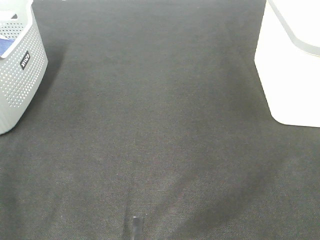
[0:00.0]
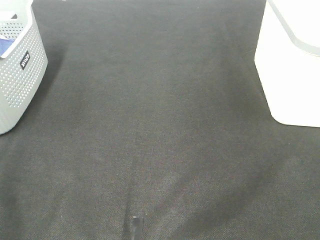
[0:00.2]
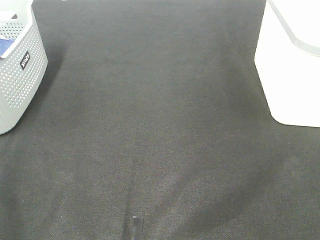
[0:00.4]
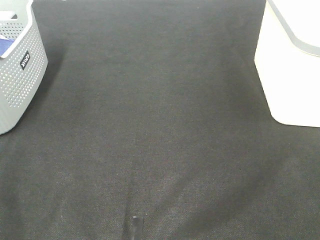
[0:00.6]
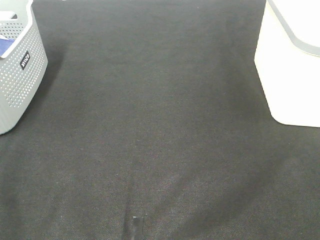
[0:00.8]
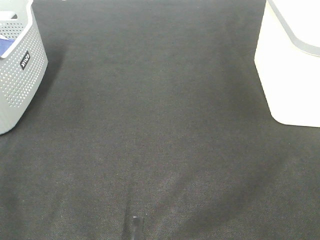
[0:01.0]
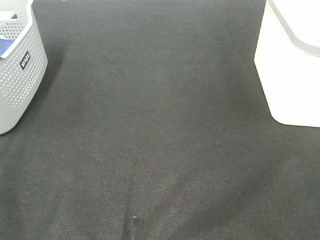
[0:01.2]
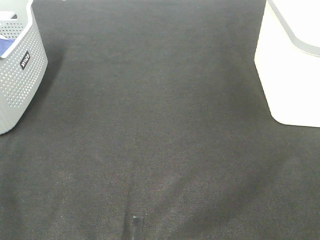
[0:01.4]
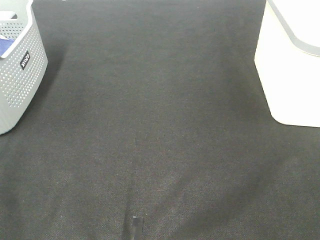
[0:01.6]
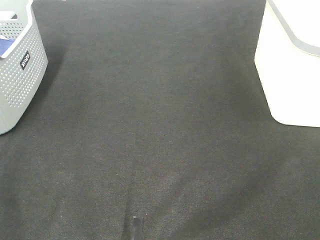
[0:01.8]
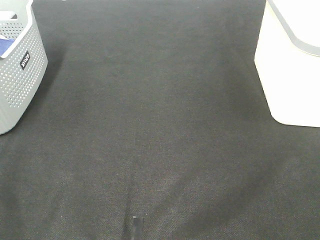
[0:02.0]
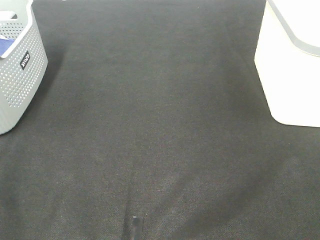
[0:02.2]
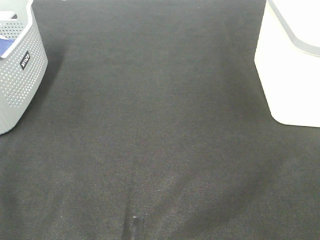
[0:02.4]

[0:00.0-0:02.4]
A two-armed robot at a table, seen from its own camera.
0:01.2 to 0:02.4: Both grippers stay about where they are.

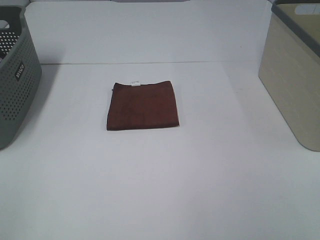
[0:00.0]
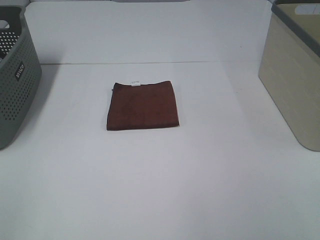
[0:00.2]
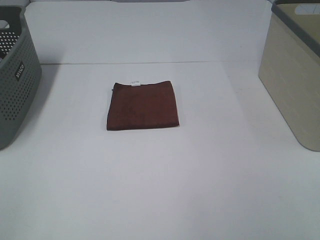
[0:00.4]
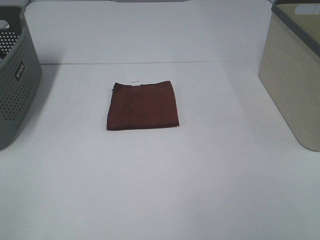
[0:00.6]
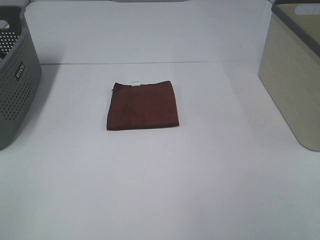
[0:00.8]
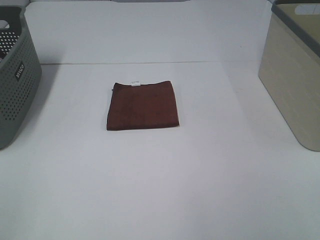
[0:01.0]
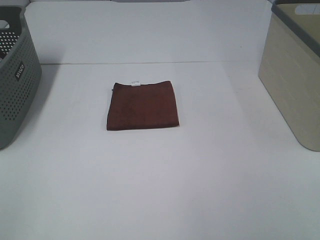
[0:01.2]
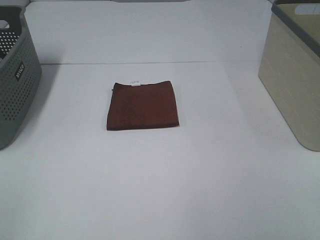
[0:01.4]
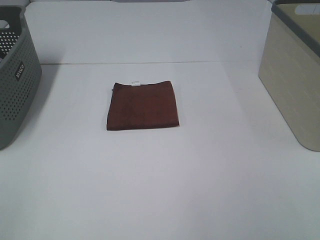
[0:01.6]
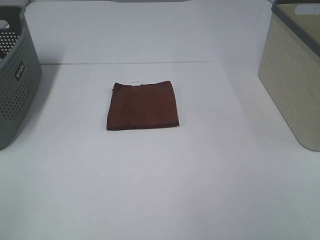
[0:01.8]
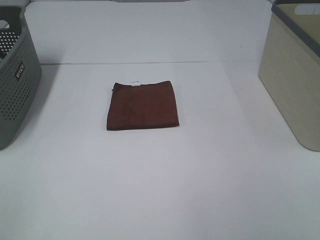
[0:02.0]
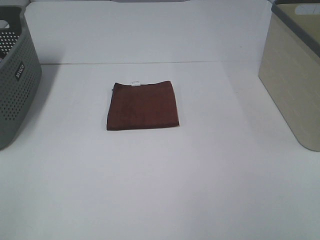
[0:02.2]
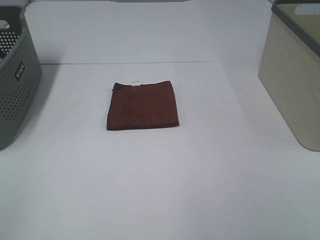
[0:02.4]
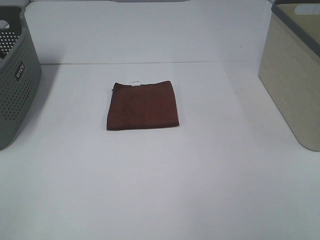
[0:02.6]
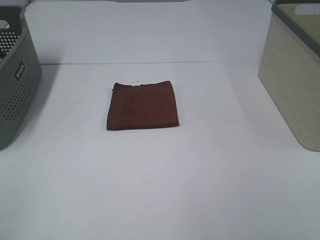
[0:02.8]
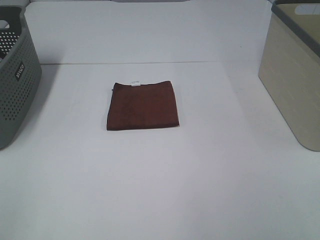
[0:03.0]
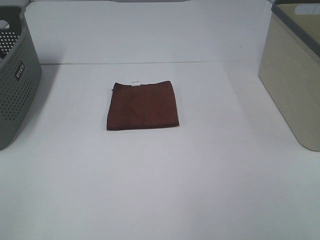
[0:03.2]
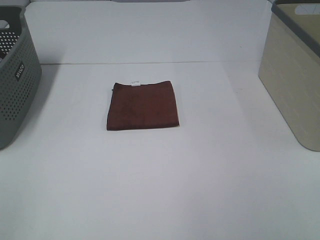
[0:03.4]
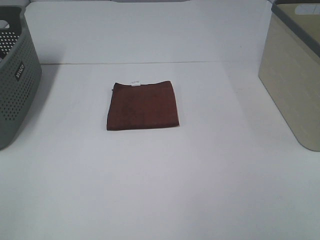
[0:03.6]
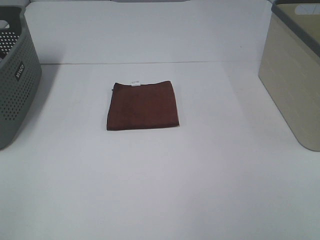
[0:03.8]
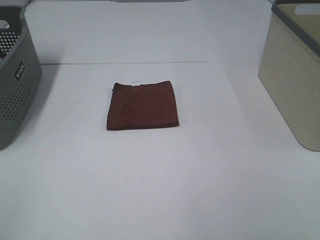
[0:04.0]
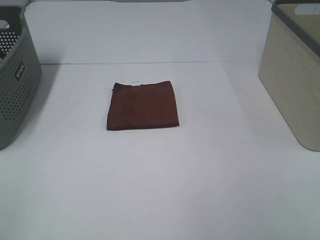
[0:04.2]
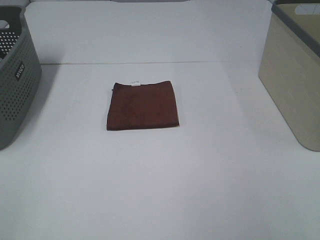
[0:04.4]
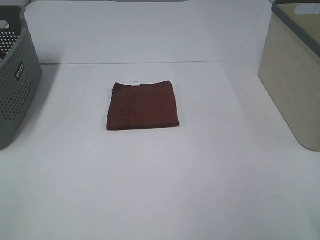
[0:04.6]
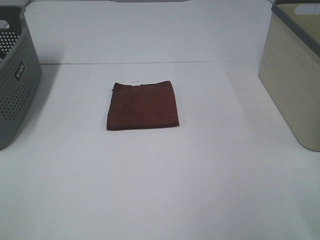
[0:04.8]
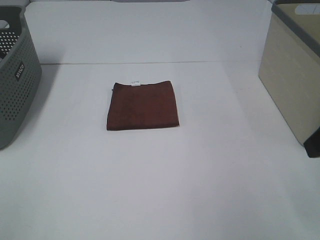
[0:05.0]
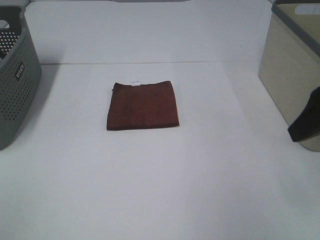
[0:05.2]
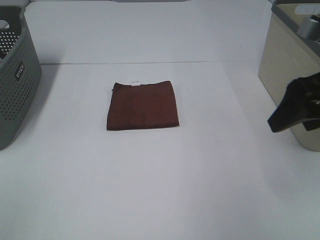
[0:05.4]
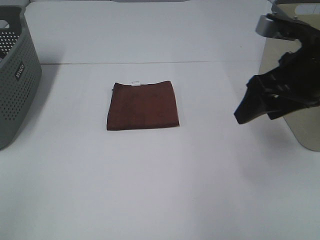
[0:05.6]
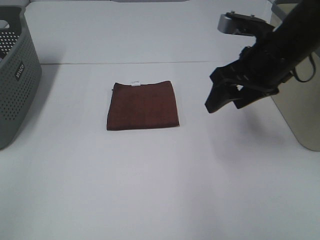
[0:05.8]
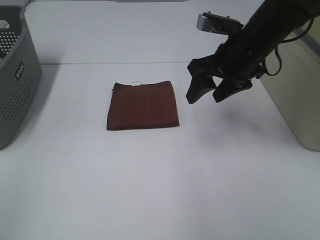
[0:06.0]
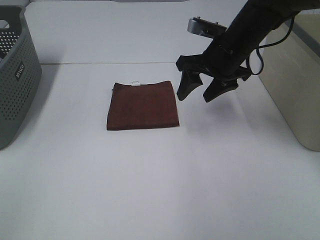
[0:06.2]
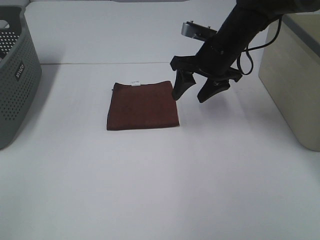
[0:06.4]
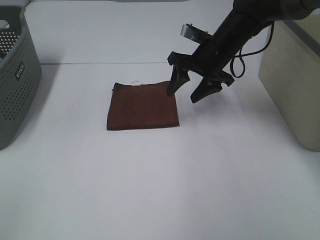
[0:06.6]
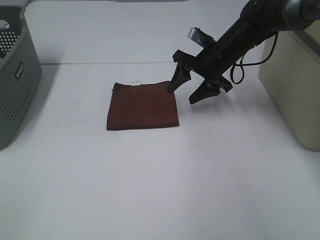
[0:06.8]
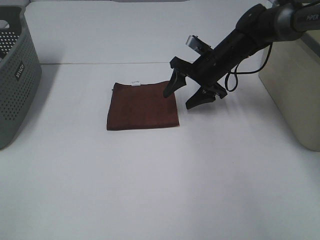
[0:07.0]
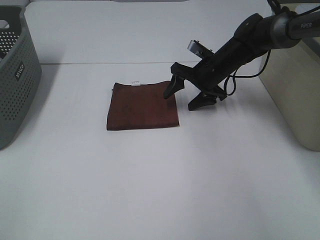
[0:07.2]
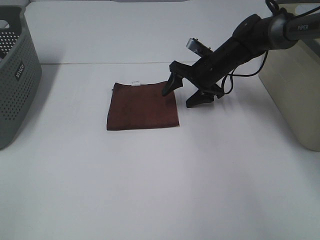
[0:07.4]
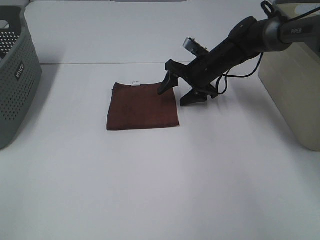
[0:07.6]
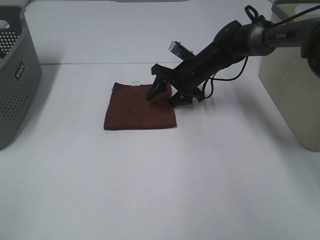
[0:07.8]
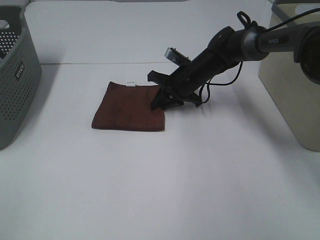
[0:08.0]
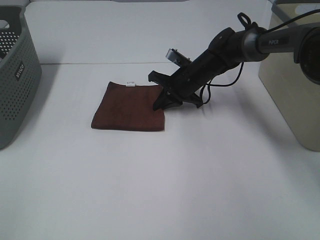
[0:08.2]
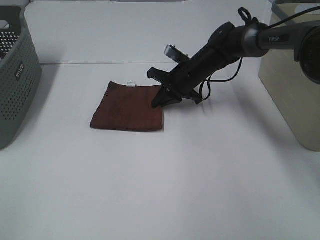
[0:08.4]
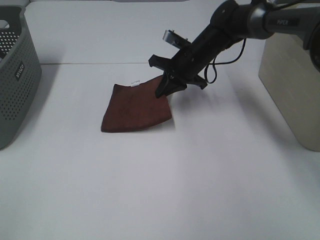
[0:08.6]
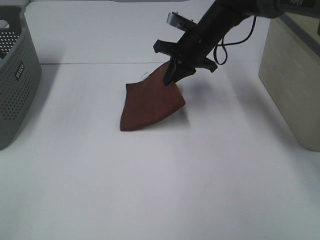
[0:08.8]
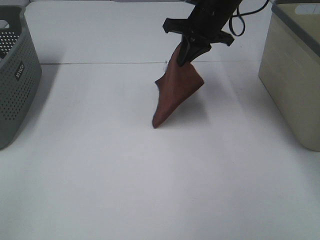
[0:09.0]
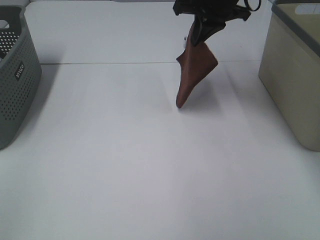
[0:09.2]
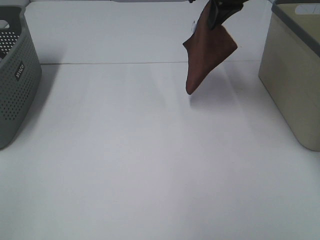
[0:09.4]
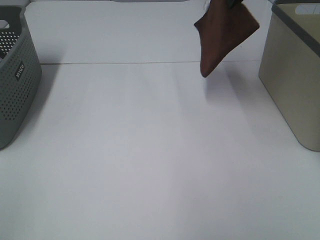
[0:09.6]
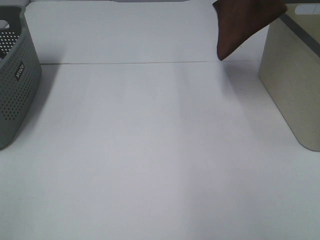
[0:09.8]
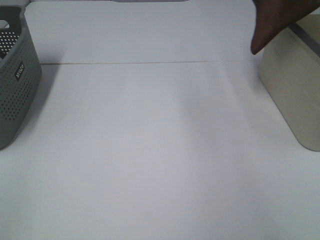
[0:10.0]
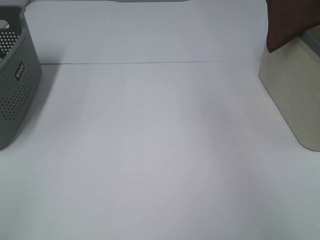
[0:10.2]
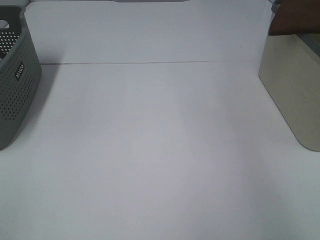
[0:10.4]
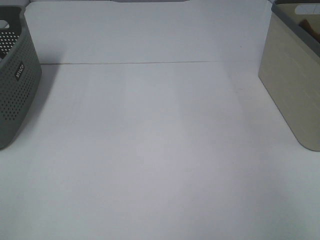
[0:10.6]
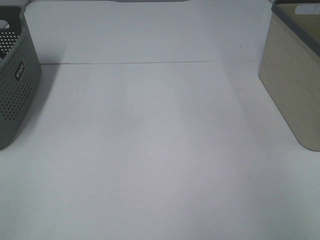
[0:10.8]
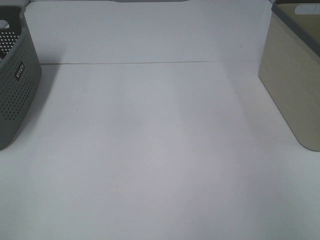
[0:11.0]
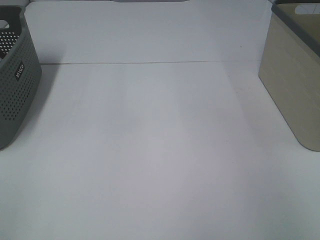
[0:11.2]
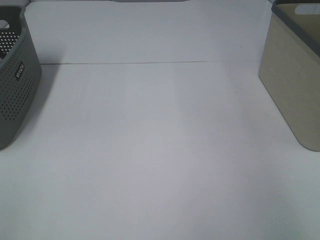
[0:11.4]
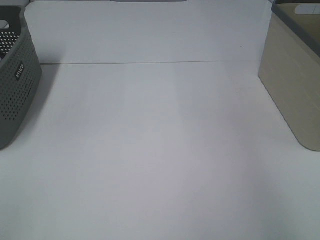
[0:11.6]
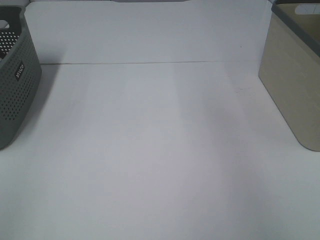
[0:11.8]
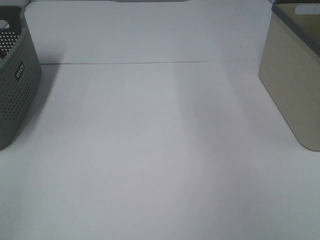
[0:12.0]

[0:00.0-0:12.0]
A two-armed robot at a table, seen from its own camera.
Step, 0:00.0 to 0:08.2: Right hand: grab the folded brown towel.
Step, 0:08.4 to 0:11.2: Right hand: place the brown towel in right basket.
0:00.0 to 0:03.0: The two grippers keep their place.
0:04.4 to 0:06.0: The right gripper moves forward and to the left, some 30 cm.
0:06.0 to 0:07.6: The right gripper heads forward and downward, covering about 15 cm.
0:07.6 to 0:09.0: The right gripper heads upward, covering roughly 15 cm, and closes up.
0:09.0 to 0:10.4: The right gripper heads to the right, covering approximately 30 cm.
0:10.4 to 0:12.0: The right gripper heads to the left, backward and upward, covering roughly 10 cm, and opens.

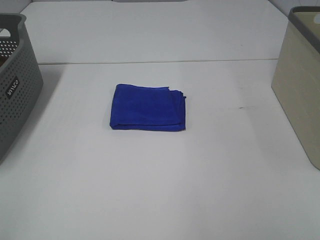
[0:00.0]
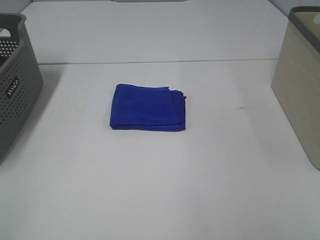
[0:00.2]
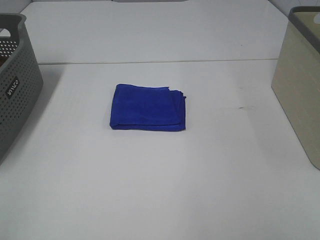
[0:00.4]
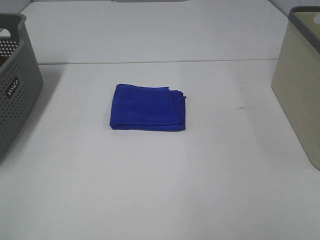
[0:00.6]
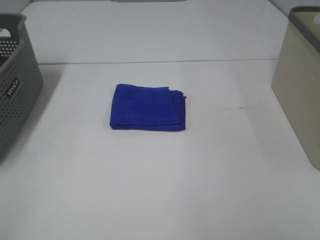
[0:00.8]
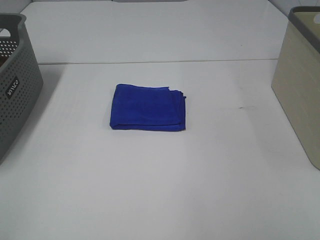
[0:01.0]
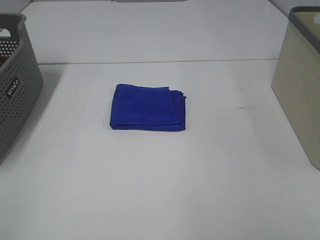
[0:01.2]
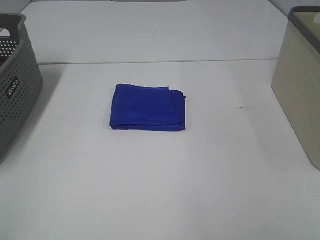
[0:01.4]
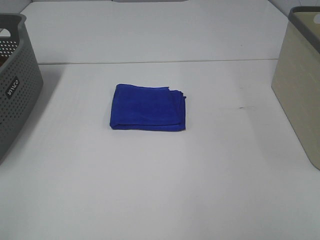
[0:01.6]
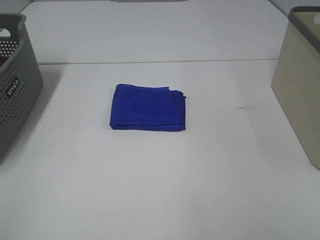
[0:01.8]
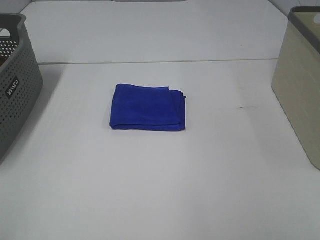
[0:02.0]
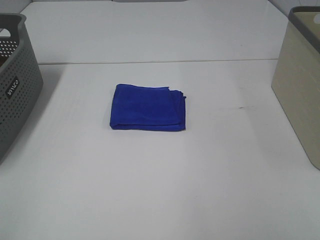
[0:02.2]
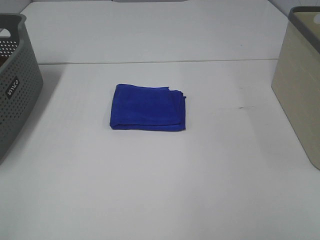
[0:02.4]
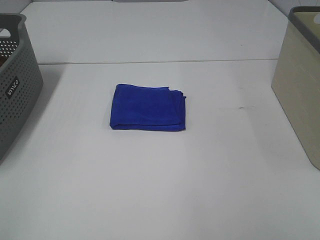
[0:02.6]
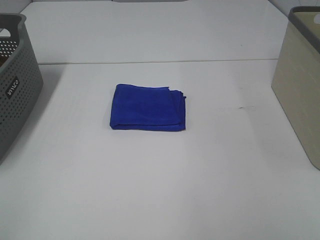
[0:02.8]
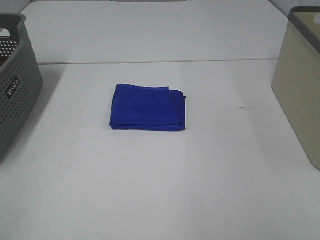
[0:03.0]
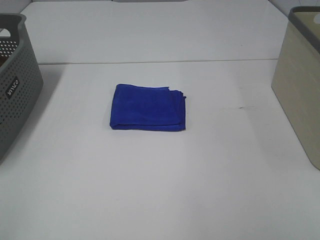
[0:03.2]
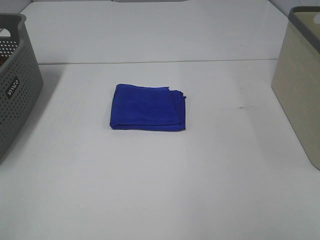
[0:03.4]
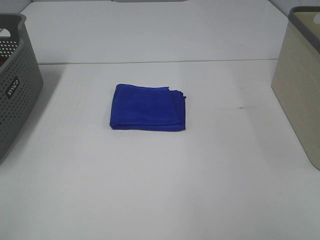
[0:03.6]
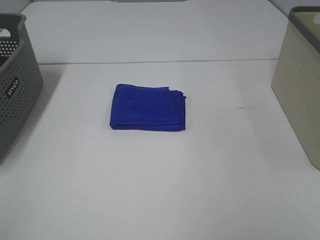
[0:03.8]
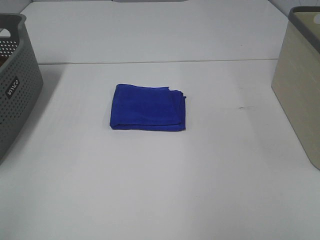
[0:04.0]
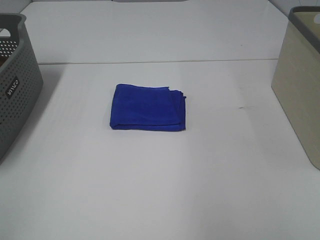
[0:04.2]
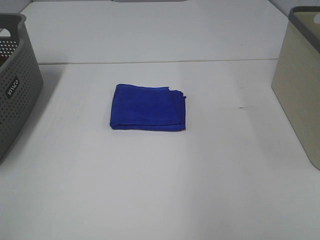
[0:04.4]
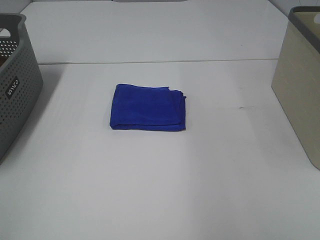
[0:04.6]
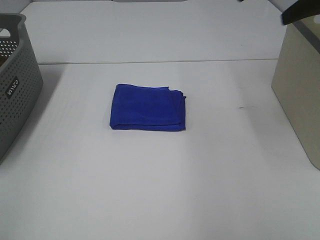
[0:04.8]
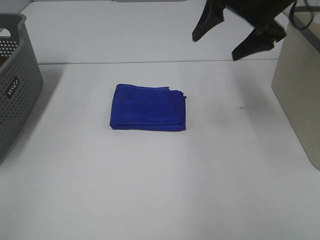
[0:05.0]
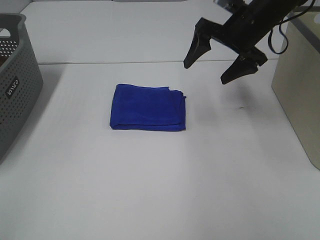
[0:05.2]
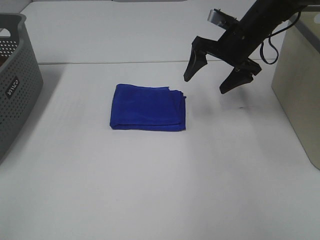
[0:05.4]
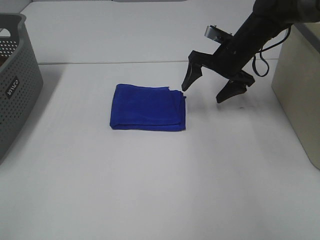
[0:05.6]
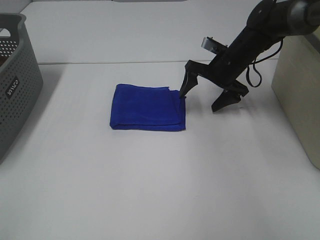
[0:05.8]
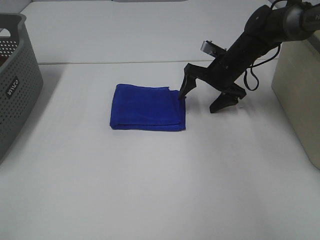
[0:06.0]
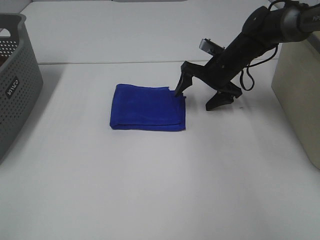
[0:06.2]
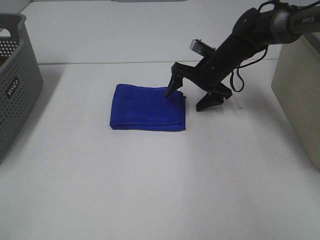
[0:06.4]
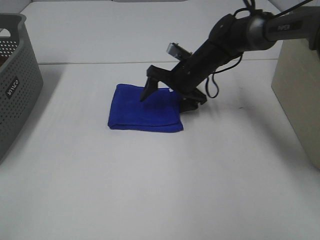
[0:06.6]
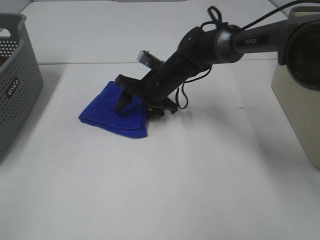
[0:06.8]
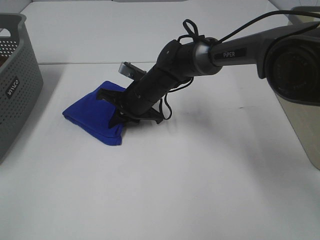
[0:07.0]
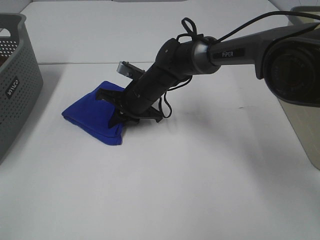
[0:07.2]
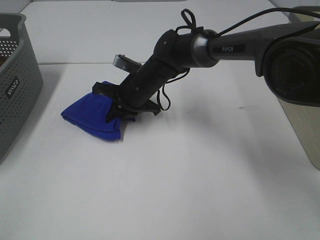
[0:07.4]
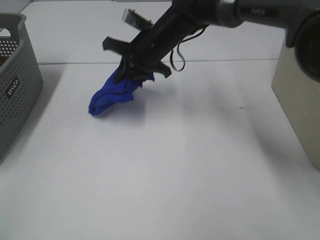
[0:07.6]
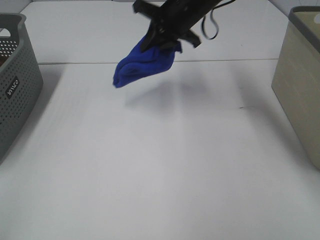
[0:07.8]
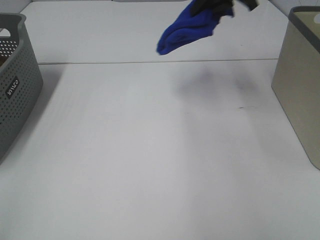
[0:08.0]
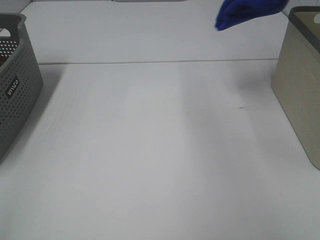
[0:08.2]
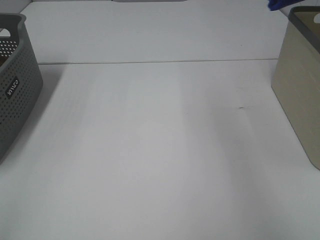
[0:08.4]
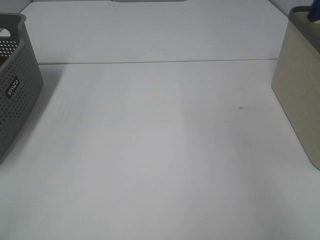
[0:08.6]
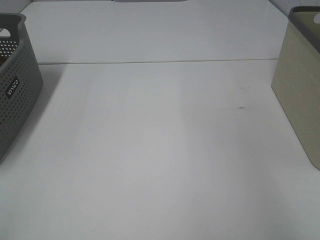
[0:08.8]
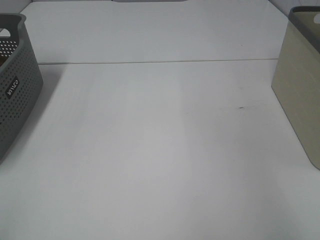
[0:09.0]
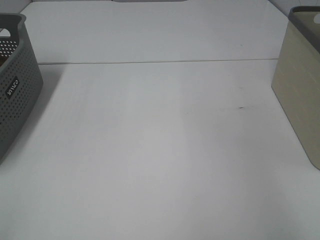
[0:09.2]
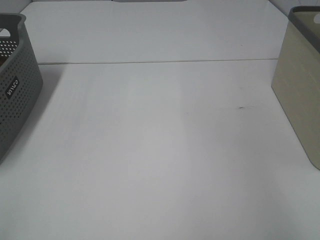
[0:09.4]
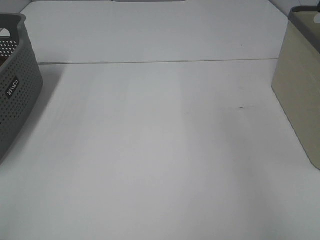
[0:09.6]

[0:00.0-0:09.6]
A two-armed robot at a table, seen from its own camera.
Step, 0:00.0 to 0:07.0: Right hand: grab the folded blue towel.
Step, 0:07.2 to 0:09.4: Right hand: place the blue towel in right basket.
0:00.0 to 0:03.2: Both grippers stay put.
0:03.2 to 0:04.8: The right gripper travels forward by about 35 cm.
0:04.8 to 0:06.4: The right gripper is displaced downward and forward by roughly 25 cm.
0:06.4 to 0:08.0: The right gripper shifts roughly 20 cm upward, and closes its fingers.
0:08.0 to 0:09.6: The right gripper heads to the right, covering some 20 cm, and opens.
